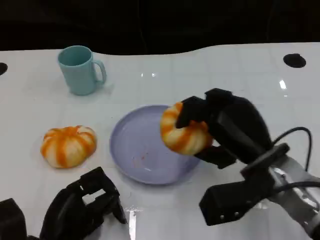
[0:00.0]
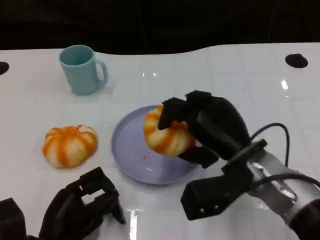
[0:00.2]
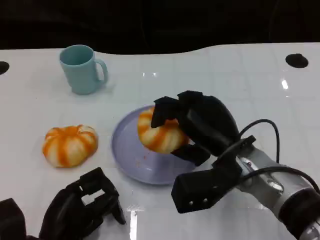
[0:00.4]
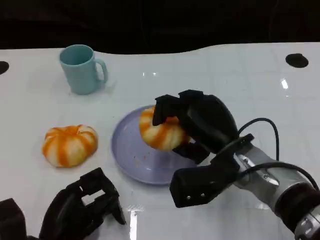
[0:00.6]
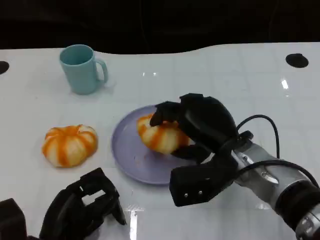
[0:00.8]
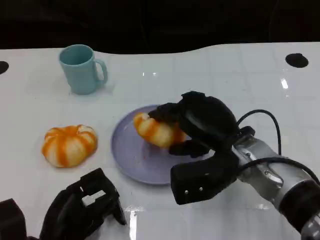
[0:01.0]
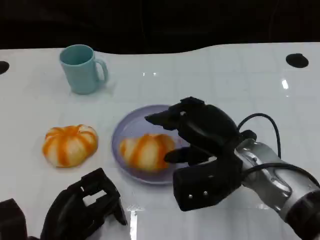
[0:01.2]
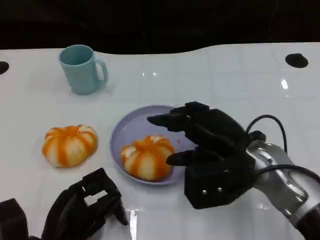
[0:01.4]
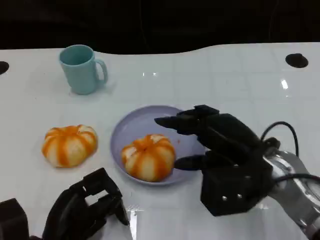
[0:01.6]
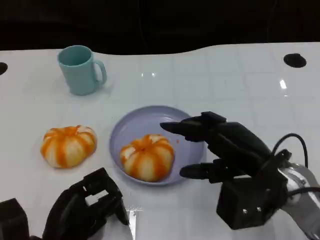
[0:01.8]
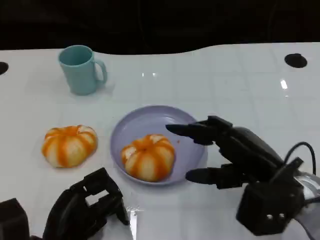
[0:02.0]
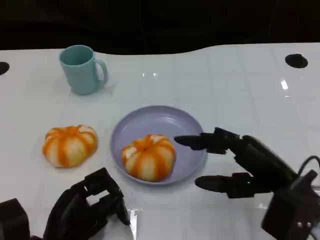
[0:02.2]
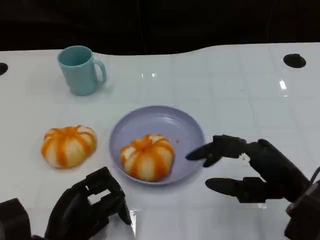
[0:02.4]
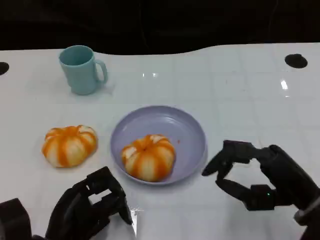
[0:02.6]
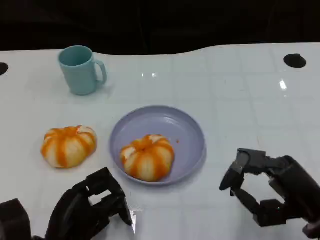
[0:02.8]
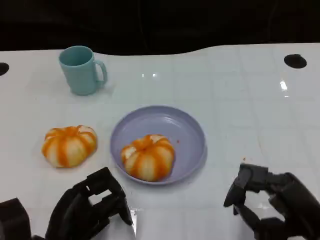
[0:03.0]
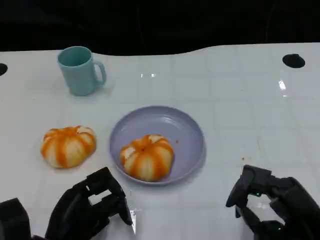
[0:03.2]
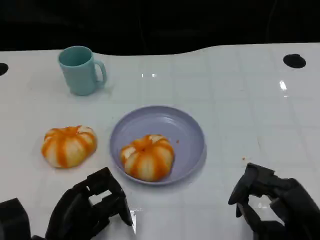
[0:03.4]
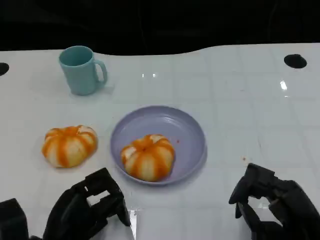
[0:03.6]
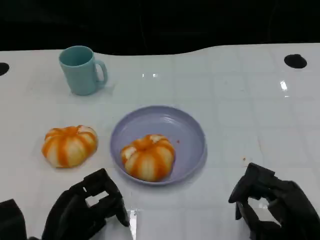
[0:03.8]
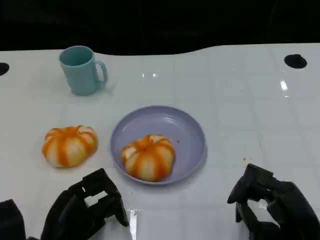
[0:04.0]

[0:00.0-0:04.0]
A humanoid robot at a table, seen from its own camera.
Task of the whole recording: Grasp the bread from the table and place it into the plate.
0:01.4 to 0:02.6: The right hand moves to the right and backward, roughly 10 cm.
0:02.6 to 0:04.0: The right hand moves downward, some 5 cm.

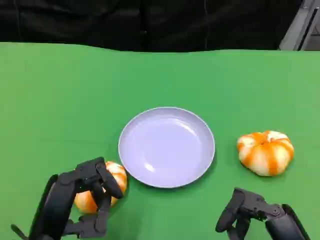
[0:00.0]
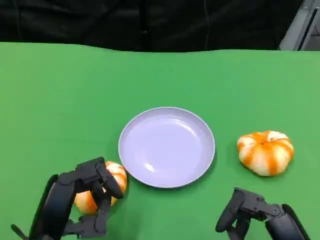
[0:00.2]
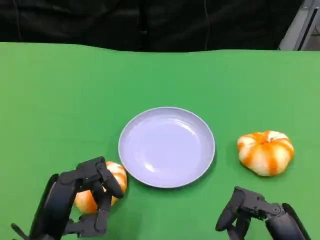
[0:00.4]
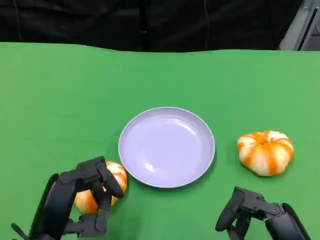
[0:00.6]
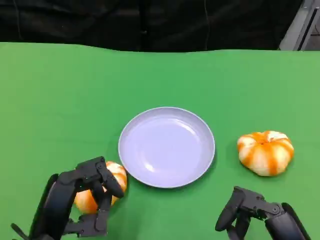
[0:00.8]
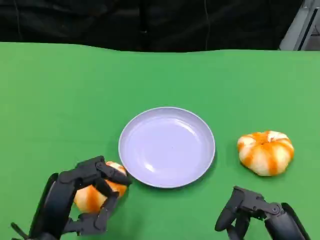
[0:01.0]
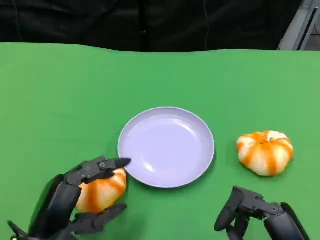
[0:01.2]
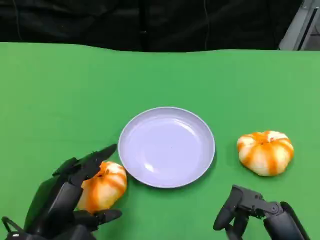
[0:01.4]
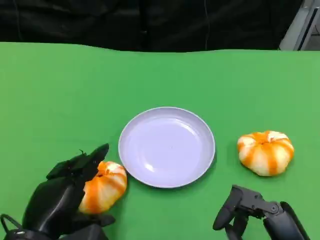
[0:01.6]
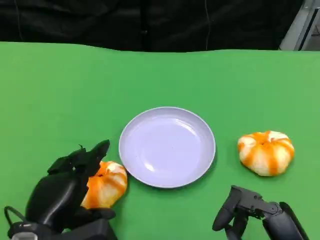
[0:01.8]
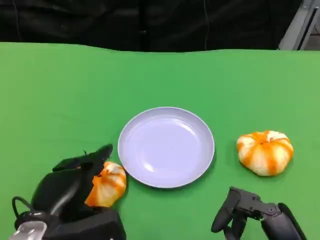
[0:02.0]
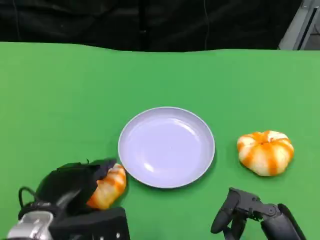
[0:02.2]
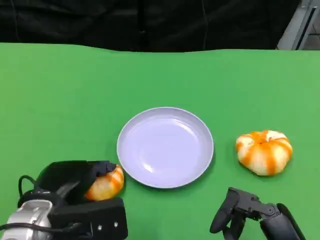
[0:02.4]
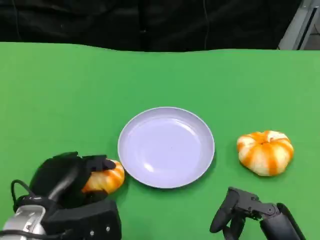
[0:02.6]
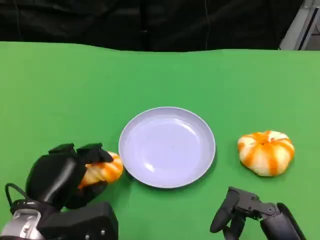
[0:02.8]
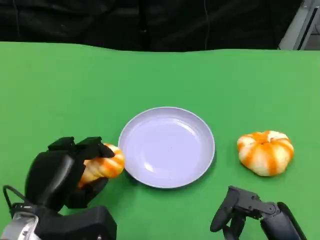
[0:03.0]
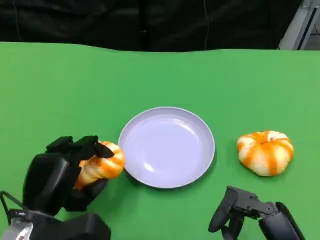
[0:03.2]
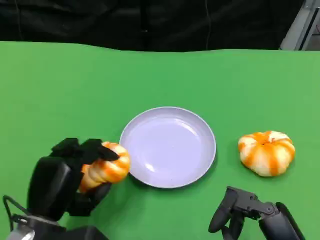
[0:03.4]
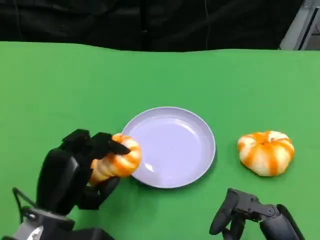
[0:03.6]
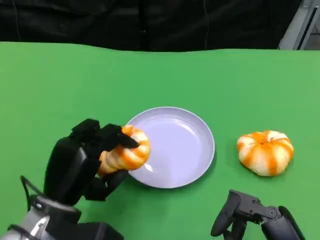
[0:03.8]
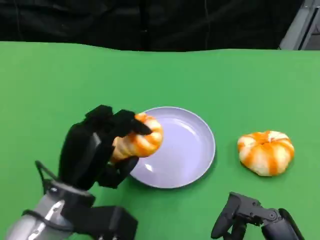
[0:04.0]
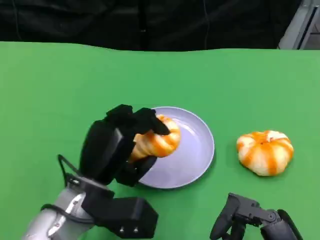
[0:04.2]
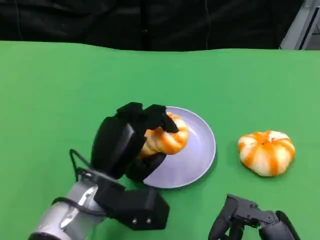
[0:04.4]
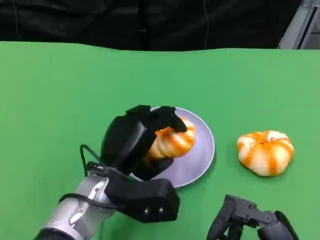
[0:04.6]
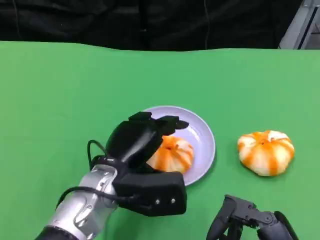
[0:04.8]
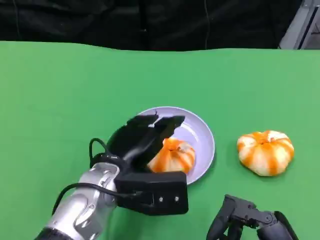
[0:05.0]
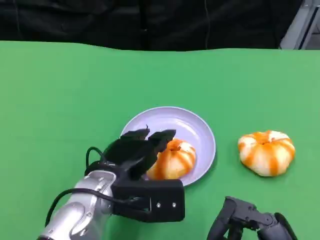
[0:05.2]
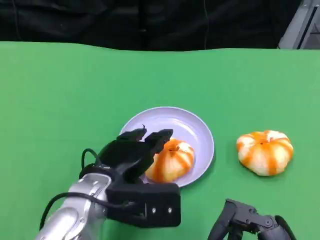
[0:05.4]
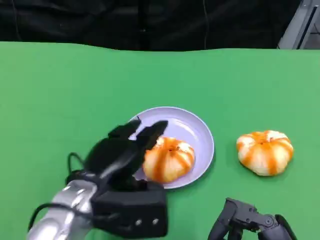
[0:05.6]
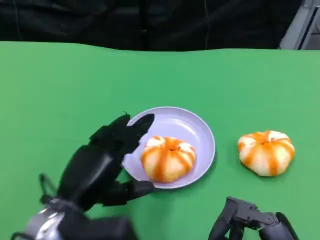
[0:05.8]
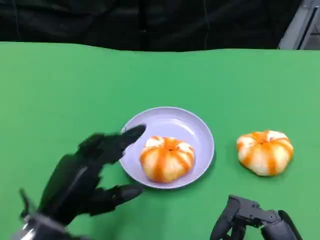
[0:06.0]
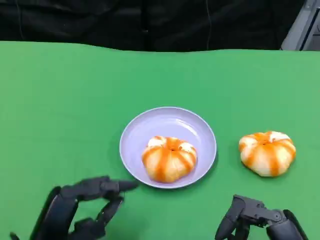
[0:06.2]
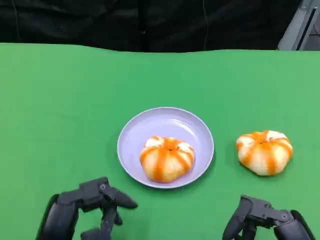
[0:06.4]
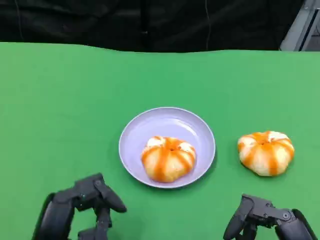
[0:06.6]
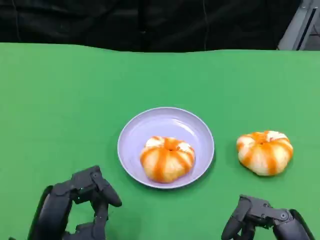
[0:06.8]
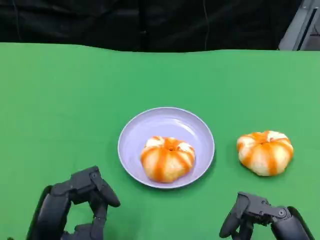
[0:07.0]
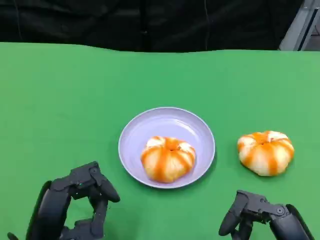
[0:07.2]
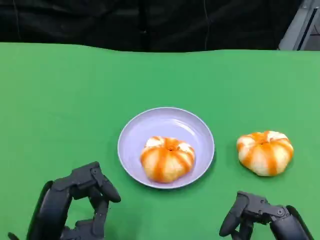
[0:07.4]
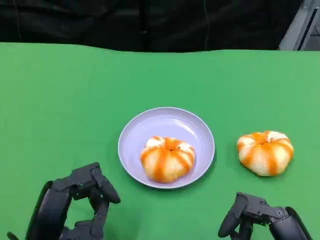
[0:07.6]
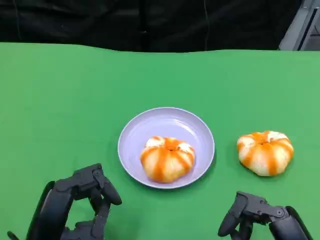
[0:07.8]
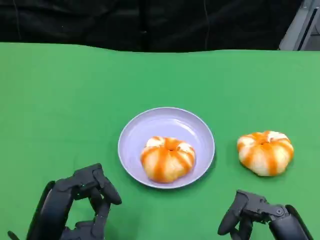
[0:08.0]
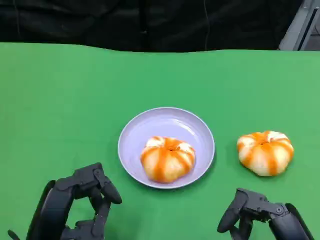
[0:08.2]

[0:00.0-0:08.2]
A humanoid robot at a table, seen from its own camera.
Task of the whole recording: Grasp the bread from the table and place it into the plate.
0:03.2 to 0:05.0: The left hand travels to the right and forward by roughly 10 cm.
0:05.0 to 0:06.6: The left hand is displaced backward and to the left by roughly 15 cm.
0:06.6 to 0:08.2: The hands stay close to where they were, moving slightly.

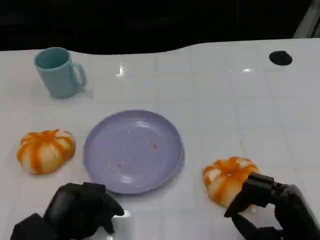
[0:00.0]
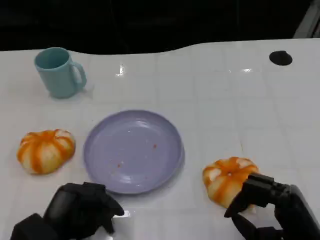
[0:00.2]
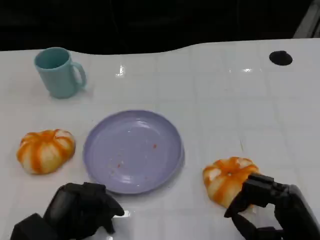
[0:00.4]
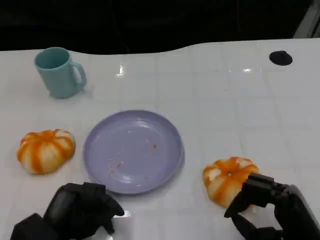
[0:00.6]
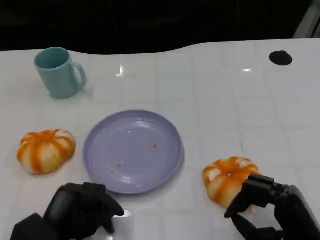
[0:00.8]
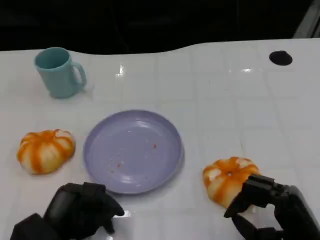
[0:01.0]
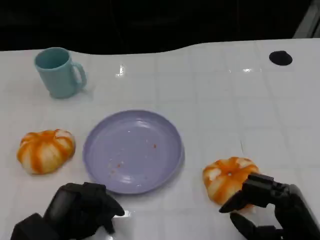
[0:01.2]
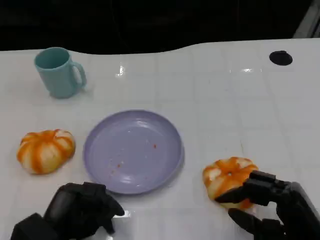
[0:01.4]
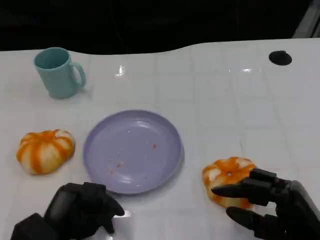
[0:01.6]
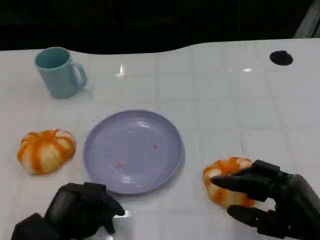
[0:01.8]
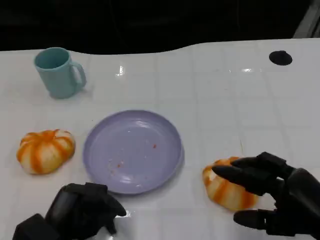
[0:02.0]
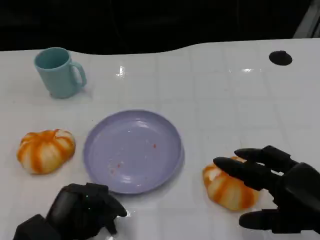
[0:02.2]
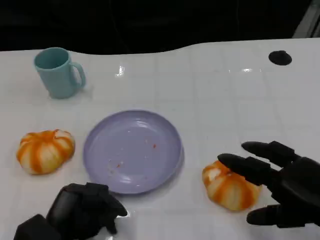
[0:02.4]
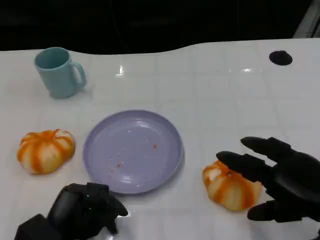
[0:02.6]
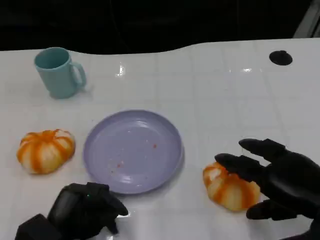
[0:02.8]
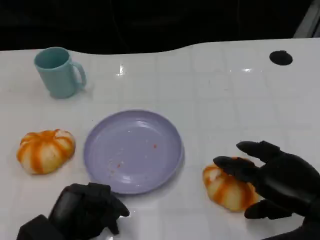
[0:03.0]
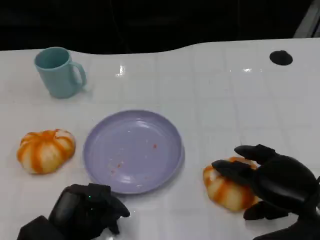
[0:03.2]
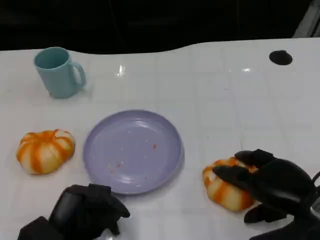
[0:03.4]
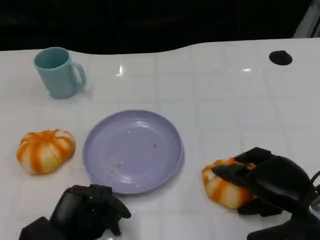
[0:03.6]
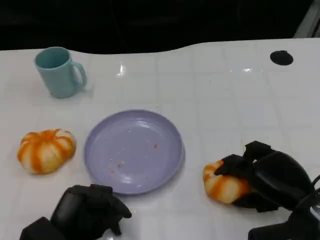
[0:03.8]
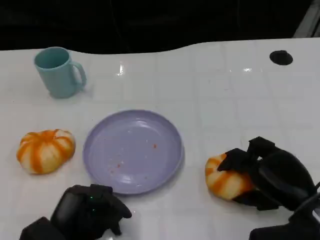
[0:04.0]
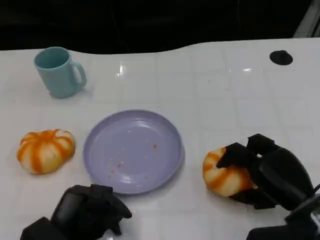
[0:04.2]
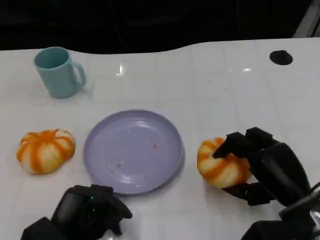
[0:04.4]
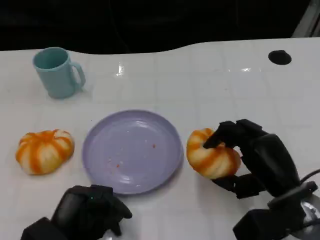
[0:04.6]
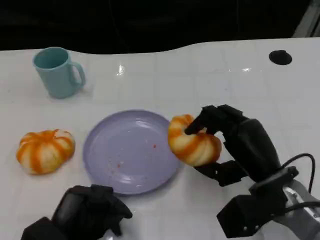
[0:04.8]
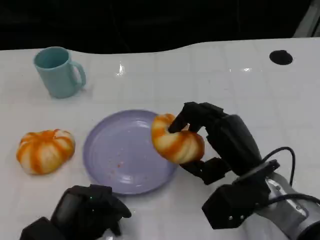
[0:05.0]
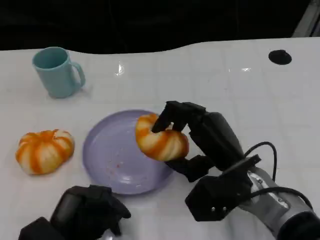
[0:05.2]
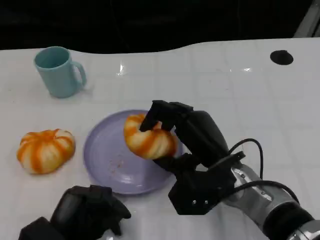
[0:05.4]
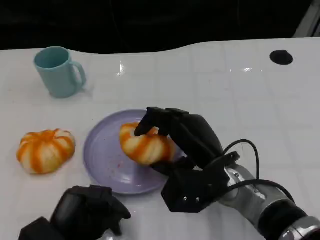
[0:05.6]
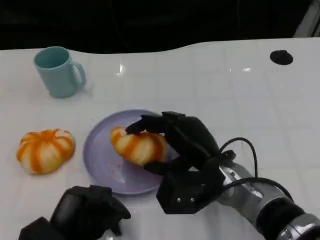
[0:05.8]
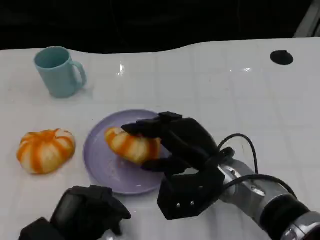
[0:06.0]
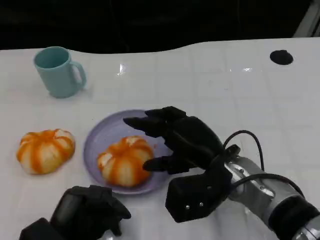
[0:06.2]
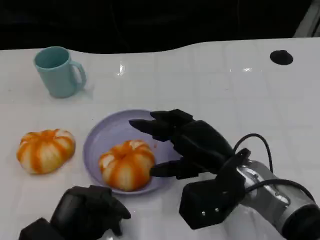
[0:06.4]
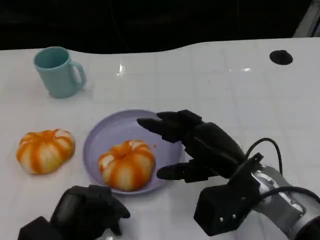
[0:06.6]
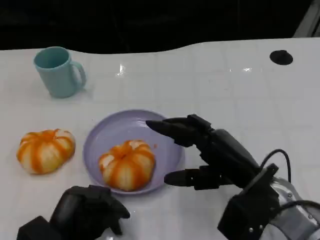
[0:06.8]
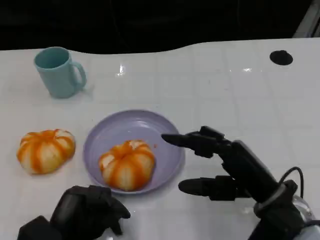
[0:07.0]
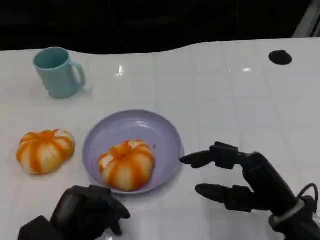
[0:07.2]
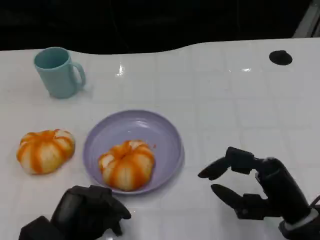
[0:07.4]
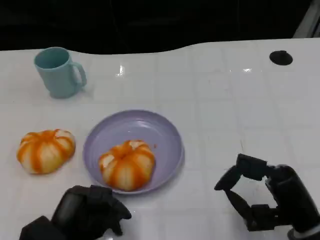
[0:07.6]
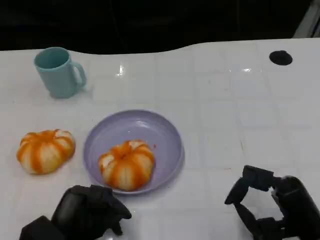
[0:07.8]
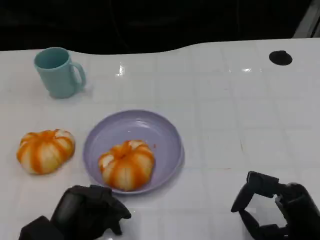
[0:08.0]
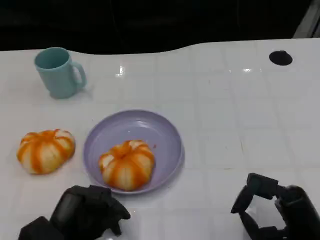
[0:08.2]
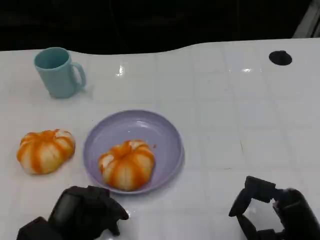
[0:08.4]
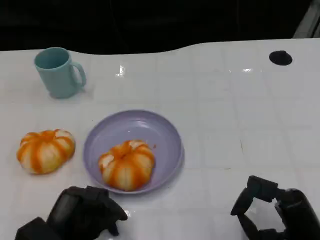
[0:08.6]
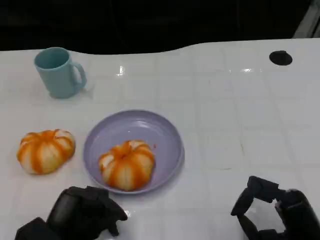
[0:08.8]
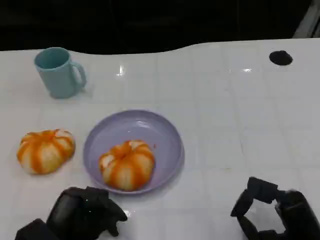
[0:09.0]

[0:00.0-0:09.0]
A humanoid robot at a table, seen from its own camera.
Task of the whole recording: Grasp the bread from the table and place it into the plate.
0:00.0 to 0:01.6: There are only small adjustments of the hands.
0:01.6 to 0:03.0: The right hand ends up some 5 cm from where it was.
0:03.0 to 0:04.4: The right hand ends up roughly 5 cm from where it was.
0:04.4 to 0:06.0: The right hand moves to the left, some 10 cm.
0:06.0 to 0:07.6: The right hand is displaced to the right and backward by roughly 15 cm.
0:07.6 to 0:09.0: There are only small adjustments of the hands.

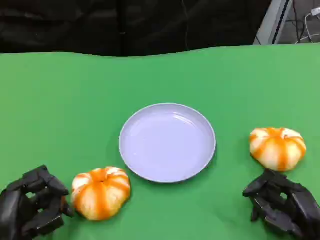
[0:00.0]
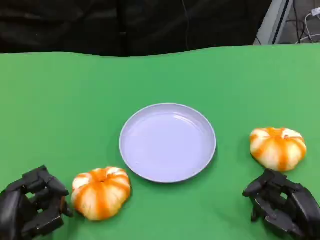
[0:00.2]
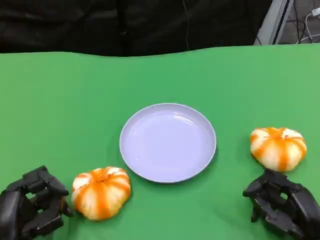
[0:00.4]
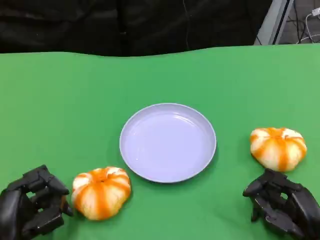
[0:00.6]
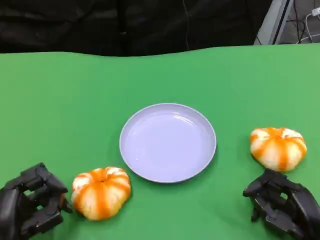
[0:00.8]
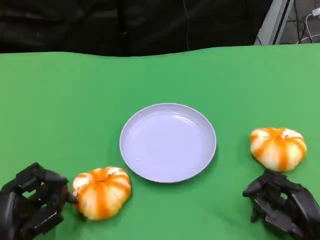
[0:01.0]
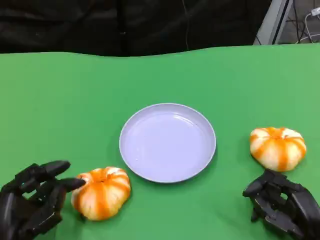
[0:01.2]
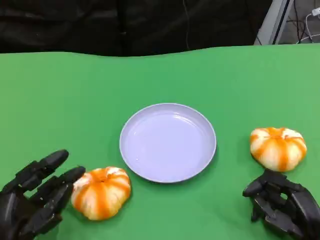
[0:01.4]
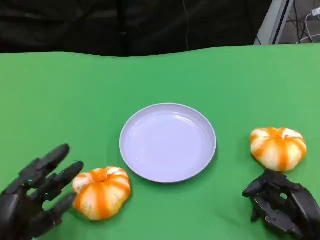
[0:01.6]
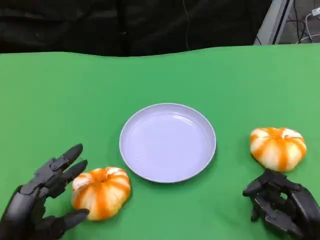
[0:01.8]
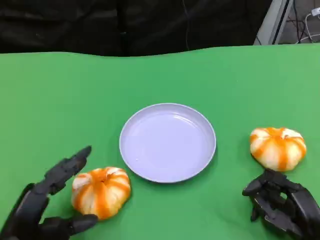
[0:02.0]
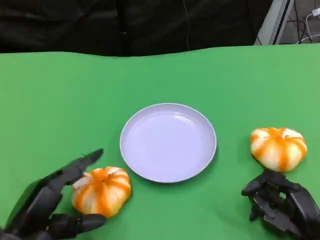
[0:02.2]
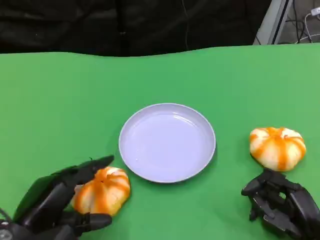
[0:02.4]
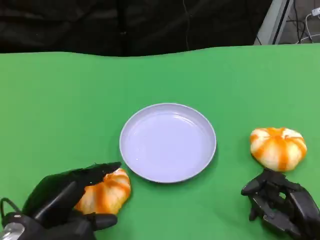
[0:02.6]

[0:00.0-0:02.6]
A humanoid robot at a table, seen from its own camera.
Task of the whole recording: Grasp the bread from the table and place it into the plate.
0:00.0 to 0:01.2: The hands make only small movements.
0:01.2 to 0:02.6: The left hand travels upward by approximately 5 cm.
